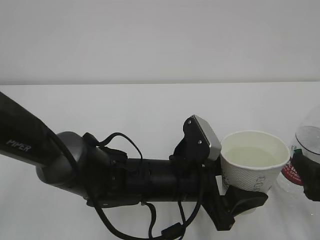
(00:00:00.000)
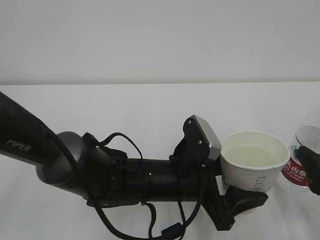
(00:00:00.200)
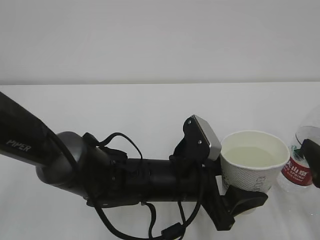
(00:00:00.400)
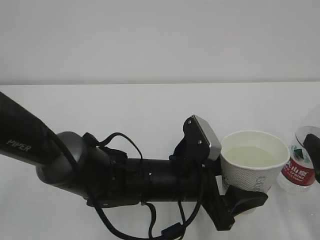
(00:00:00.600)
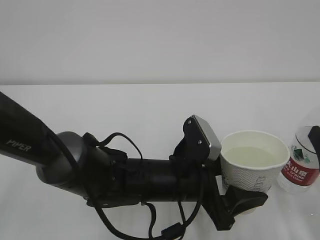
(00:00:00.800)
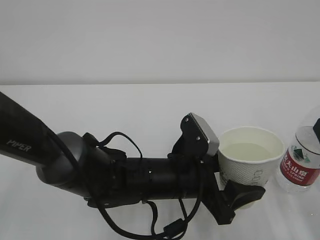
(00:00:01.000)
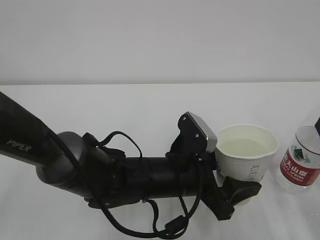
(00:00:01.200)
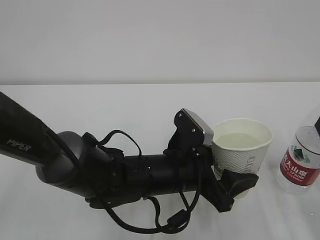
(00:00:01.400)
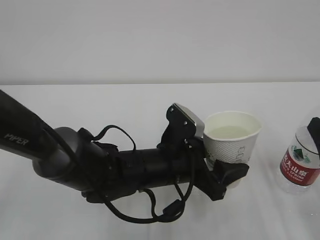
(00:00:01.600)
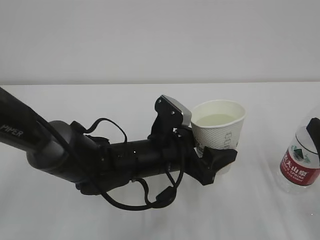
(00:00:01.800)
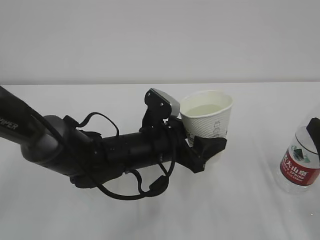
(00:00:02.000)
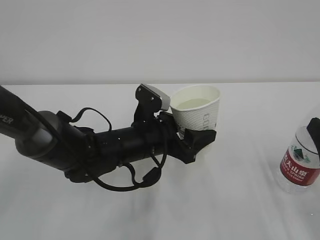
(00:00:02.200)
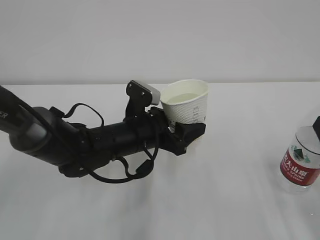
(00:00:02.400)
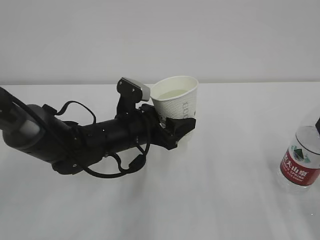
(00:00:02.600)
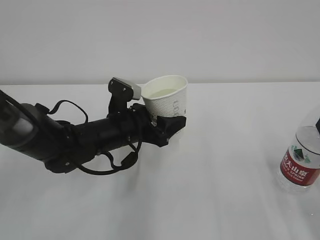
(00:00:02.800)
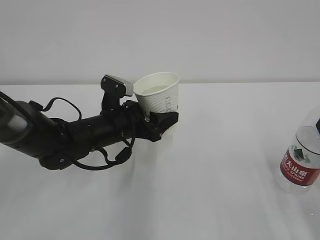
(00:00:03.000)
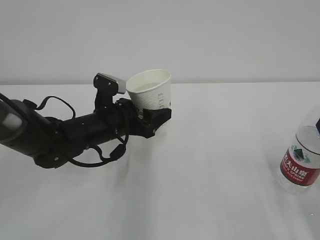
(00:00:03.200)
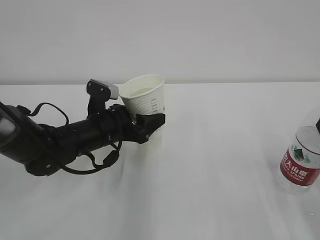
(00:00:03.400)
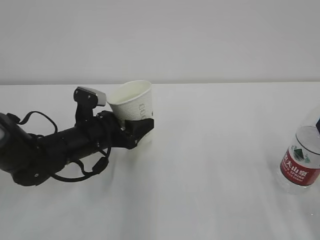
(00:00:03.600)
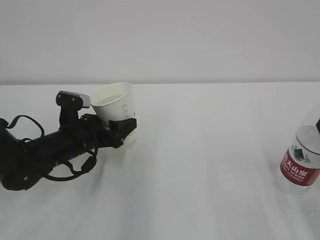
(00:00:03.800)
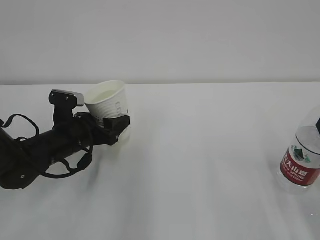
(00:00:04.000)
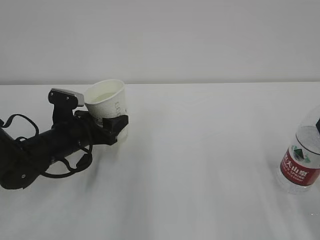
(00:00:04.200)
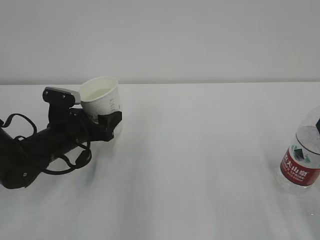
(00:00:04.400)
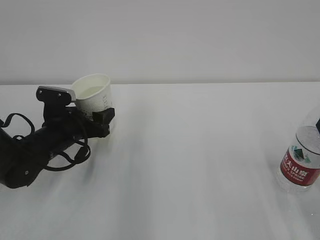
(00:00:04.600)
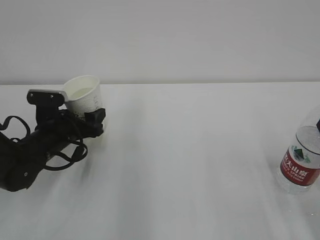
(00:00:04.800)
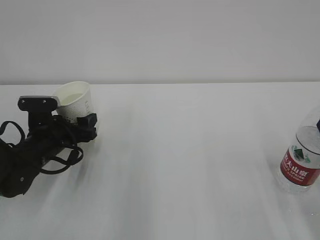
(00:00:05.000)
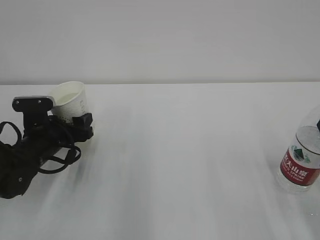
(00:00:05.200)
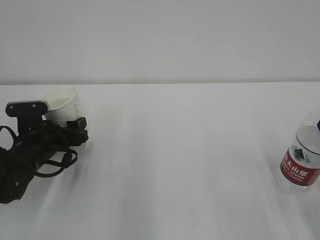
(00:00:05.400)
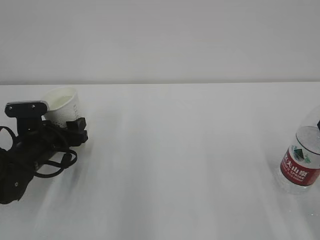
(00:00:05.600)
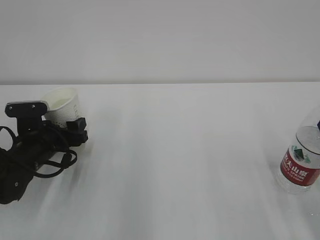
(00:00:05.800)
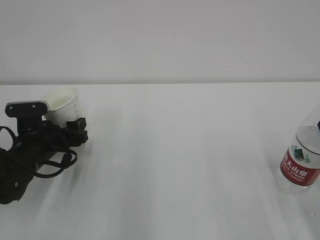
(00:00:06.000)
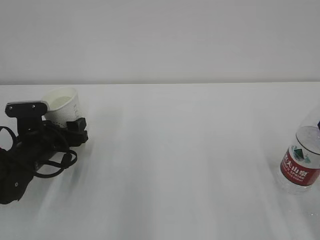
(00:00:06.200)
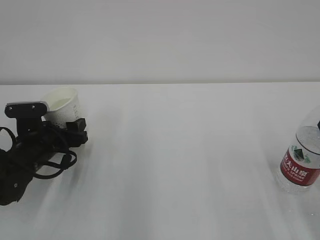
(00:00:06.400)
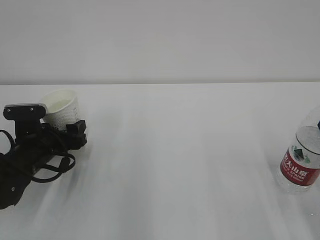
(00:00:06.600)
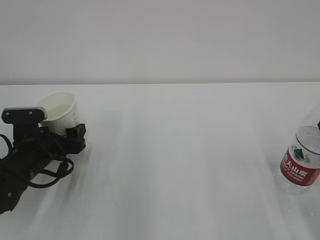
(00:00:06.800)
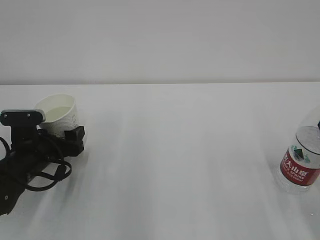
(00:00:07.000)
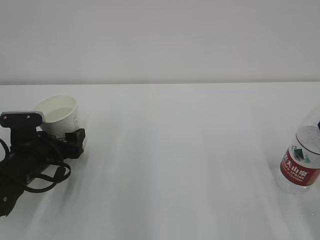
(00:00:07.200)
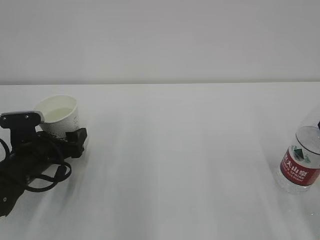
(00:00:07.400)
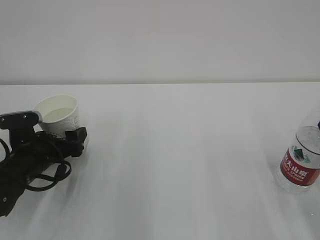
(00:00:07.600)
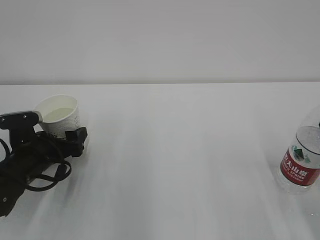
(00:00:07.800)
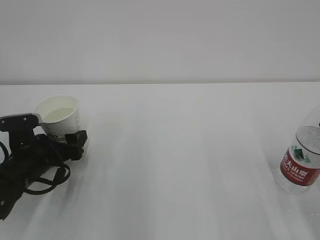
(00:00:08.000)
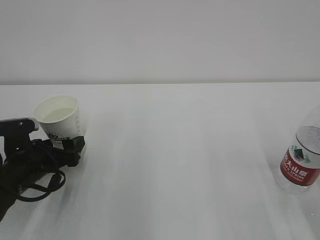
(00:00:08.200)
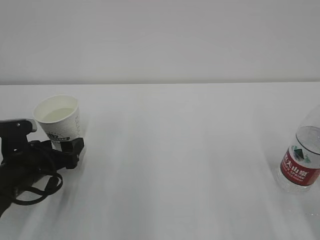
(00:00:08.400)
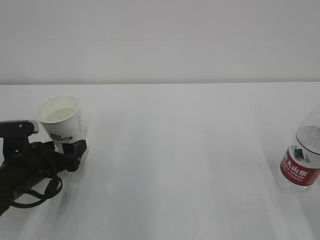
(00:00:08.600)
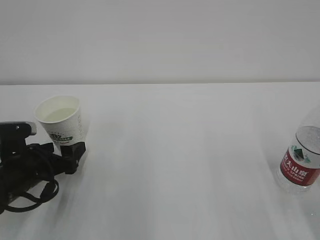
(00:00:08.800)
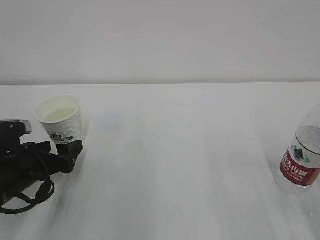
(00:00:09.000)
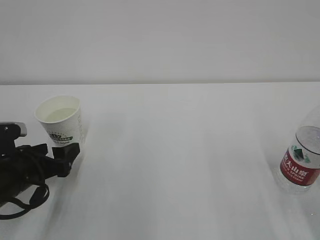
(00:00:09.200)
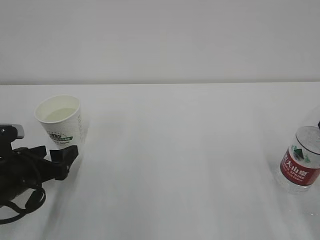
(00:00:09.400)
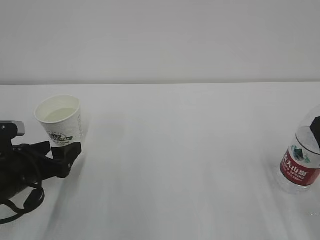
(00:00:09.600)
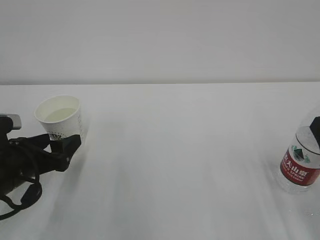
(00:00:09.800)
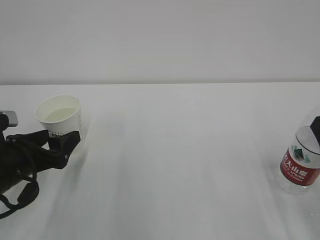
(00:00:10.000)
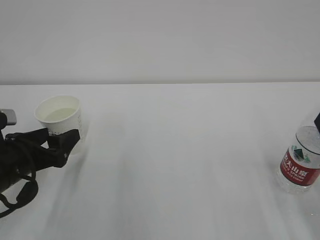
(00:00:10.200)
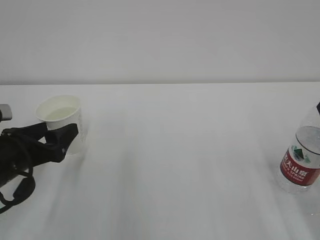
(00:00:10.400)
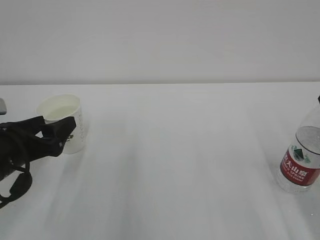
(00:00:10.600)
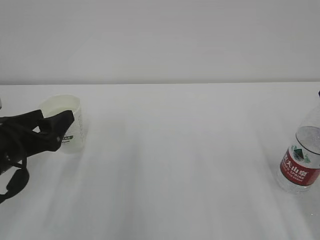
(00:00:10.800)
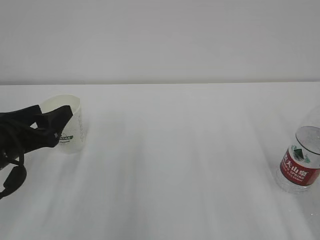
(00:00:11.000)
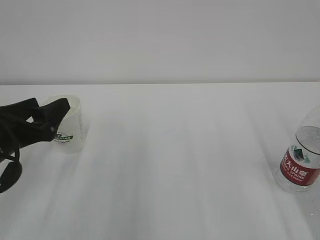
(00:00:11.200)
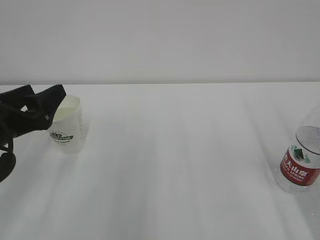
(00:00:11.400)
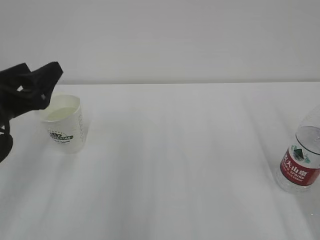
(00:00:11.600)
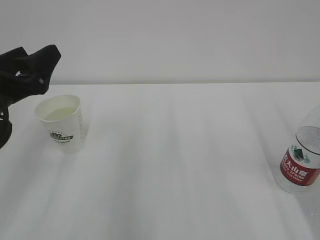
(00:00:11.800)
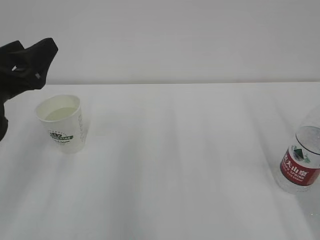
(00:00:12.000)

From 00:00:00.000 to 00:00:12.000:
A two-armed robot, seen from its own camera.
From 00:00:00.000 to 00:00:01.600: There are only small adjustments of the grippers.
From 00:00:01.600 to 00:00:03.000: The left gripper heads to the left and forward, covering about 15 cm.
From 00:00:03.000 to 00:00:04.400: The left gripper is displaced to the left by approximately 10 cm.
From 00:00:06.000 to 00:00:07.600: The left gripper opens its fingers.
From 00:00:07.600 to 00:00:09.000: There are only small adjustments of the grippers.
From 00:00:09.000 to 00:00:10.400: The left gripper shifts by about 5 cm.
From 00:00:10.400 to 00:00:12.000: The left gripper heads upward, covering some 10 cm.

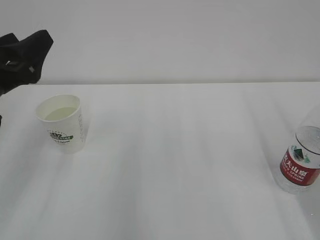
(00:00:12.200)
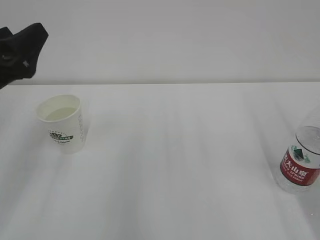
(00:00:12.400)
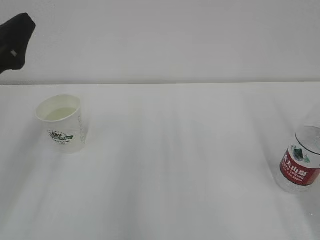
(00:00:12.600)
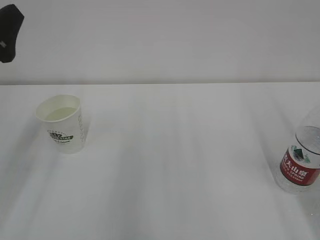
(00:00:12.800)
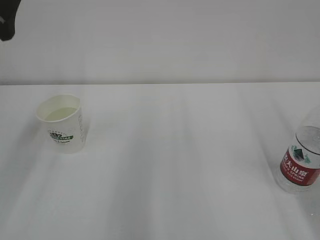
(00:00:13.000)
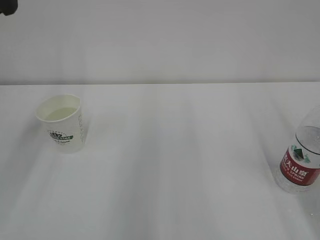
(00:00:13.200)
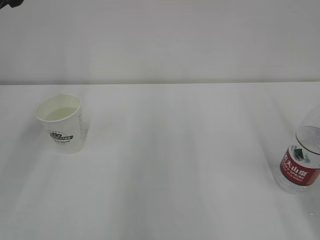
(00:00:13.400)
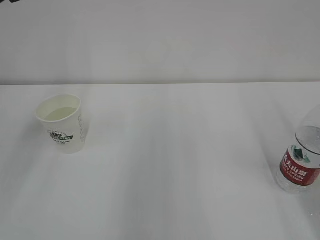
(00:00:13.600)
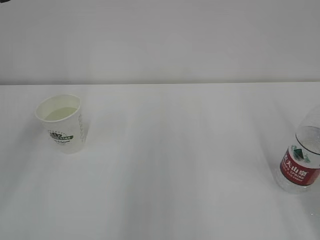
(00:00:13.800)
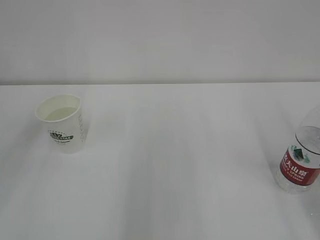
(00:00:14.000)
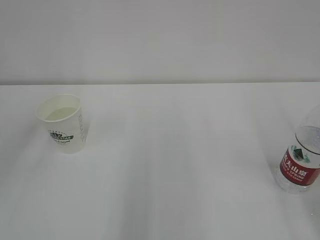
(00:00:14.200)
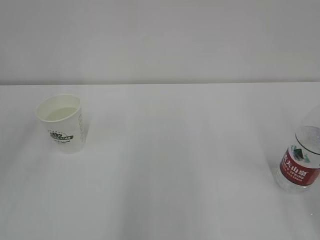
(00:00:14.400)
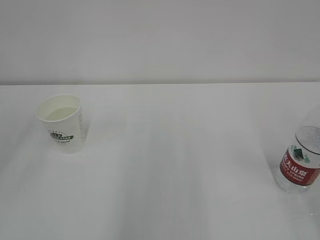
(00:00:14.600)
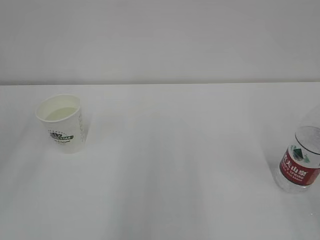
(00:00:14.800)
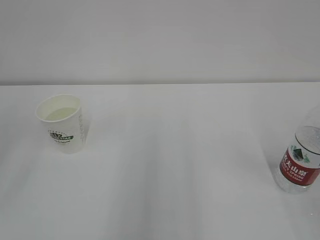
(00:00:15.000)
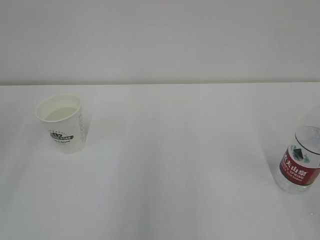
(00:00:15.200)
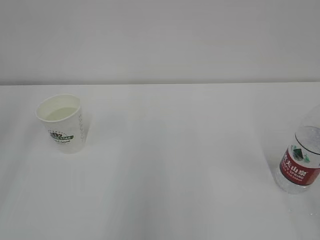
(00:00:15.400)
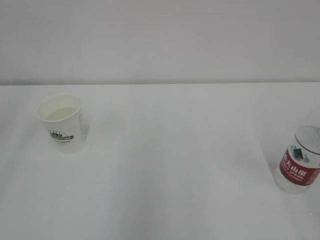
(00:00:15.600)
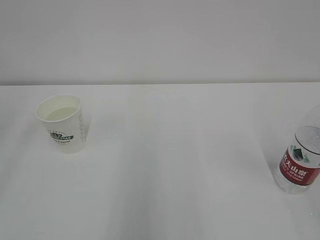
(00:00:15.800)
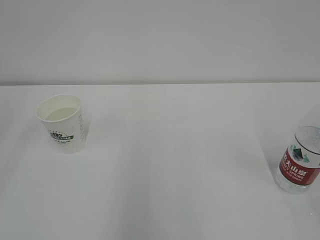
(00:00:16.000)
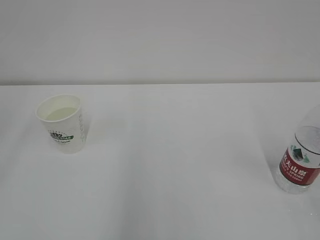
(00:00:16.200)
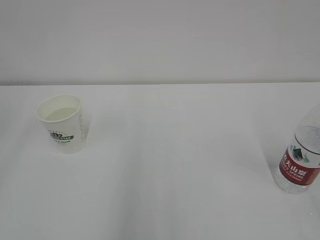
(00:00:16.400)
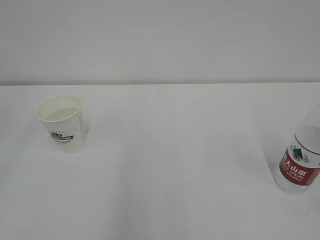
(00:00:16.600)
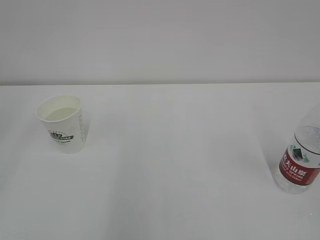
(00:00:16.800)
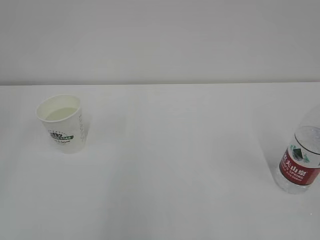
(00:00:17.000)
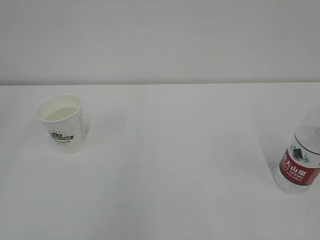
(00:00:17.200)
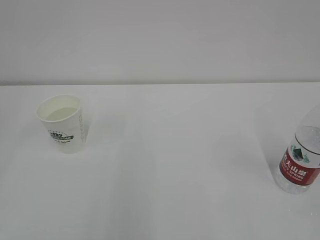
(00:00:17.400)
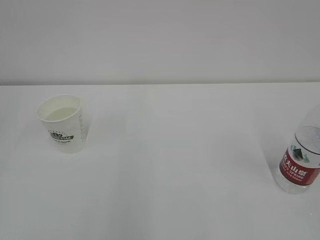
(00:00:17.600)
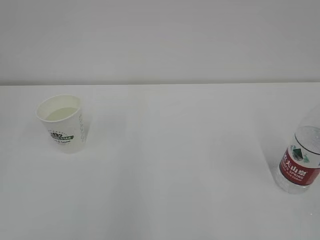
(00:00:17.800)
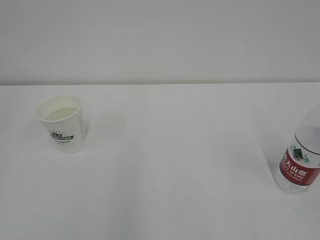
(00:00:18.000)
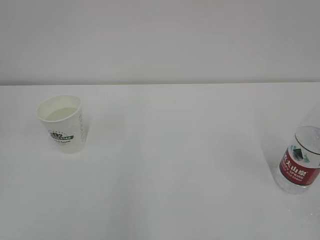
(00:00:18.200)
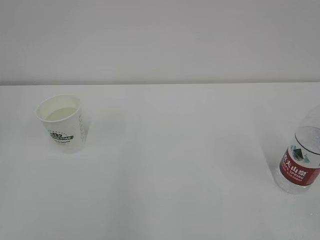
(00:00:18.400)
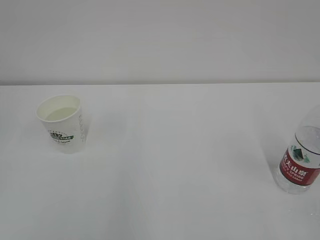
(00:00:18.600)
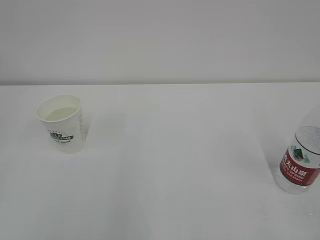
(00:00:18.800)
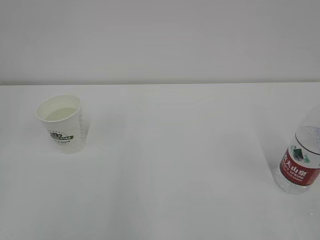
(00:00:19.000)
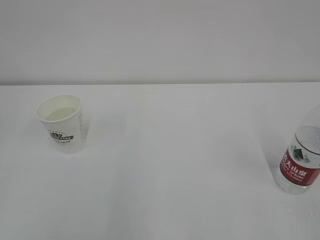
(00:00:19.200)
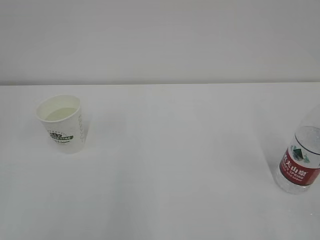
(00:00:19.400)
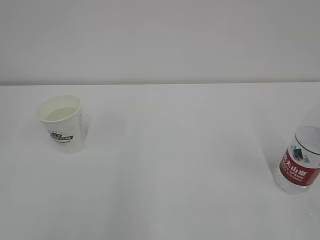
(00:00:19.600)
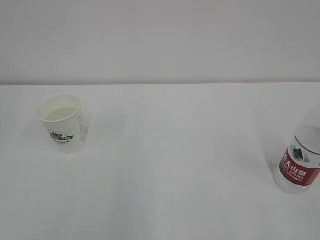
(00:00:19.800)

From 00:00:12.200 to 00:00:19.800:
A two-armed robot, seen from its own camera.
From 00:00:12.200 to 00:00:13.800: The left gripper travels upward by roughly 10 cm.
